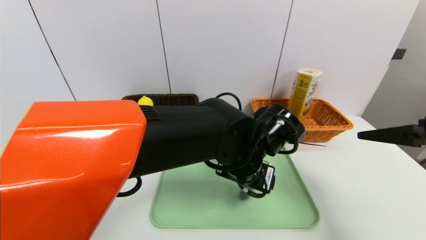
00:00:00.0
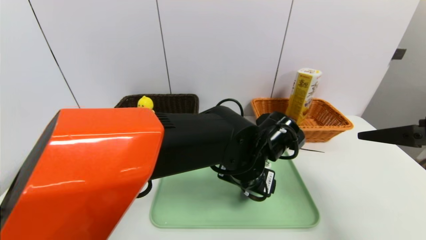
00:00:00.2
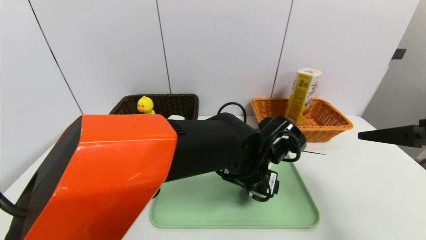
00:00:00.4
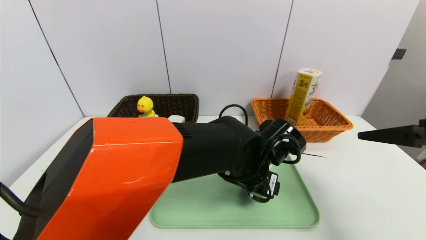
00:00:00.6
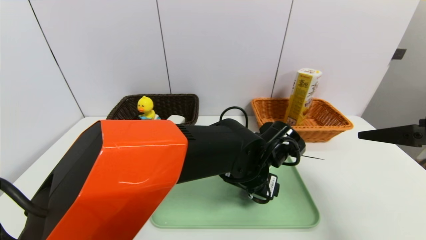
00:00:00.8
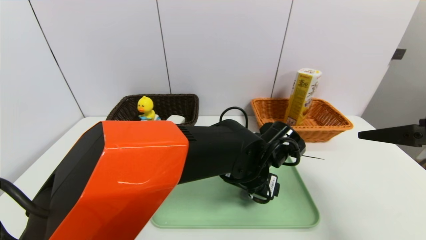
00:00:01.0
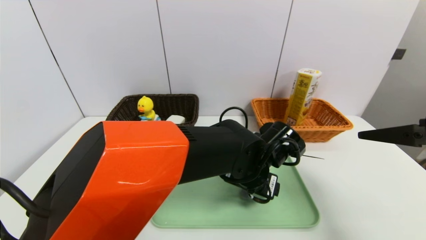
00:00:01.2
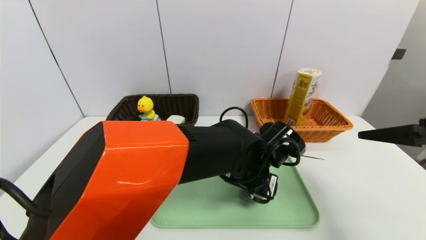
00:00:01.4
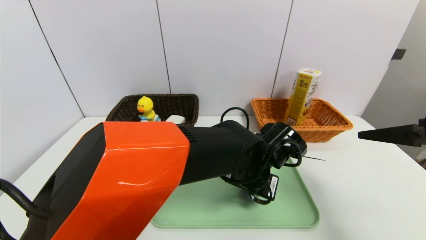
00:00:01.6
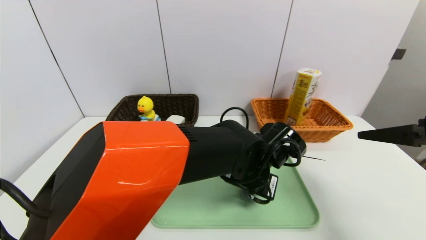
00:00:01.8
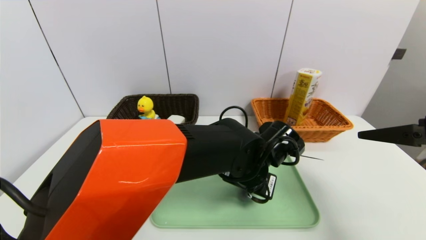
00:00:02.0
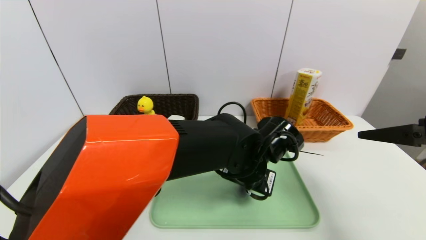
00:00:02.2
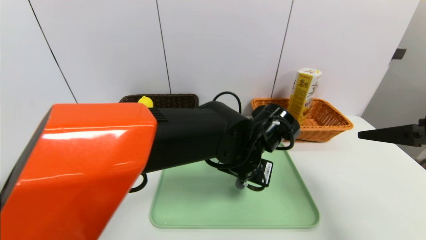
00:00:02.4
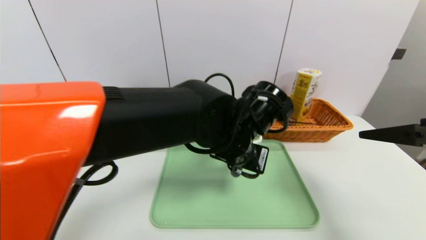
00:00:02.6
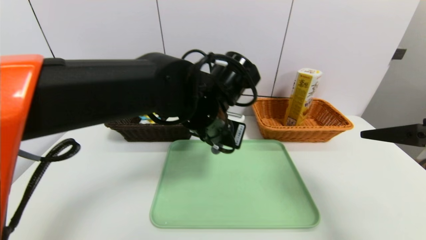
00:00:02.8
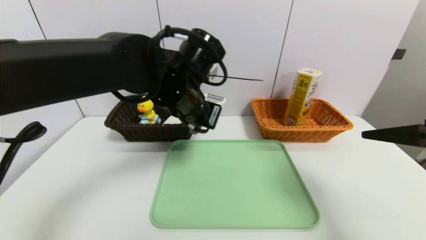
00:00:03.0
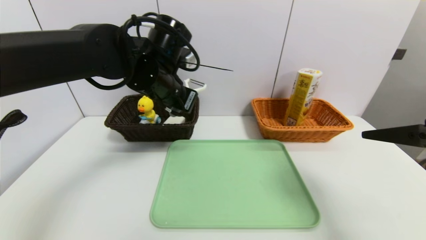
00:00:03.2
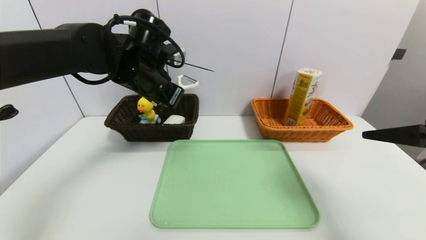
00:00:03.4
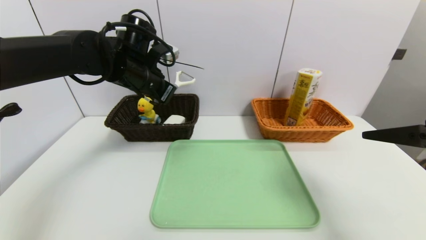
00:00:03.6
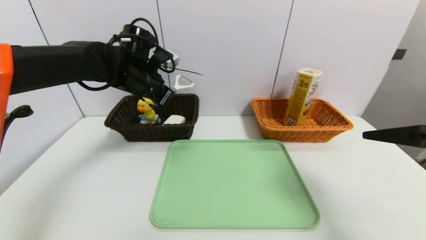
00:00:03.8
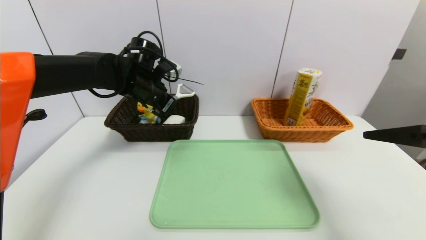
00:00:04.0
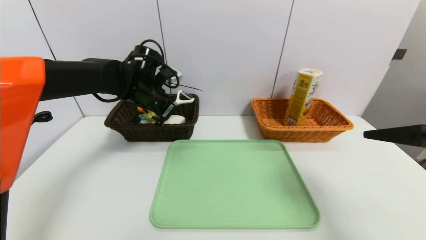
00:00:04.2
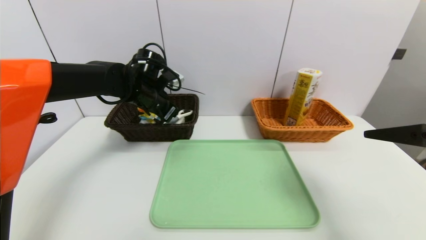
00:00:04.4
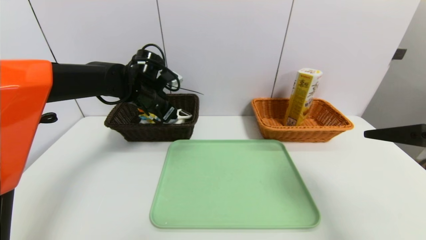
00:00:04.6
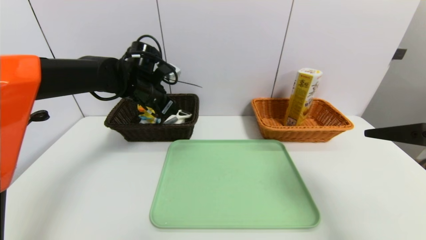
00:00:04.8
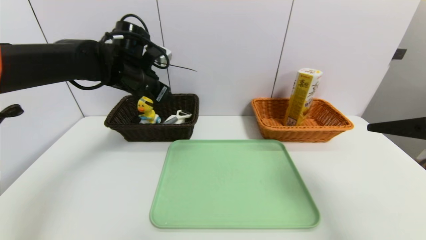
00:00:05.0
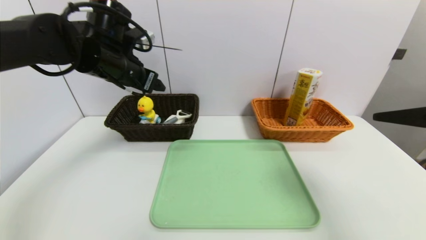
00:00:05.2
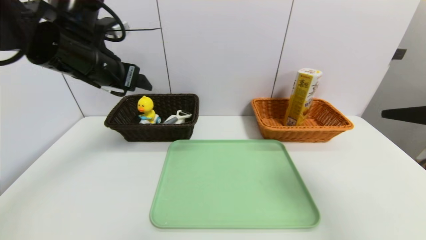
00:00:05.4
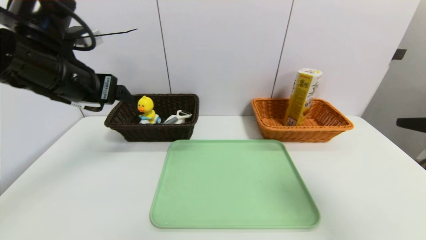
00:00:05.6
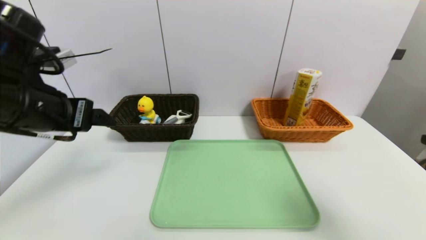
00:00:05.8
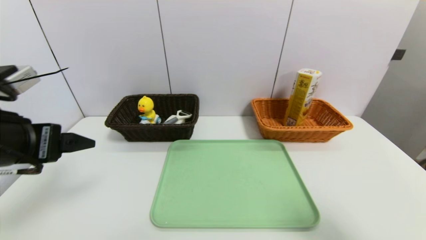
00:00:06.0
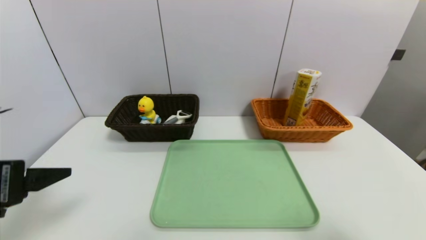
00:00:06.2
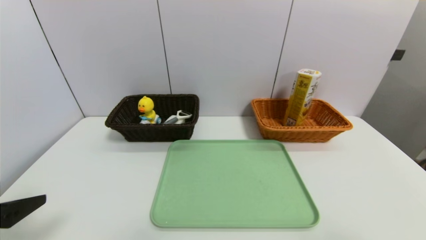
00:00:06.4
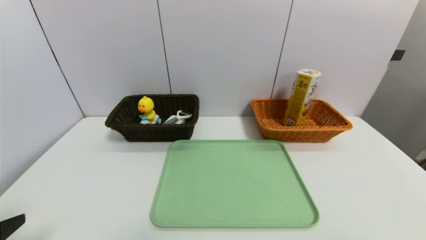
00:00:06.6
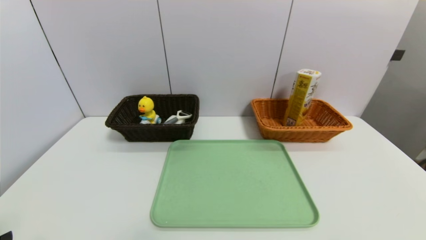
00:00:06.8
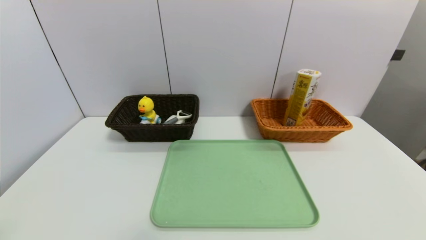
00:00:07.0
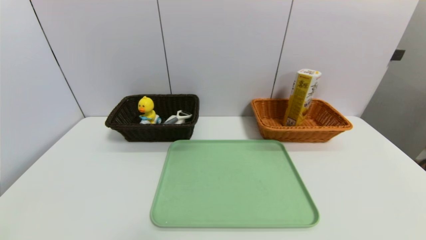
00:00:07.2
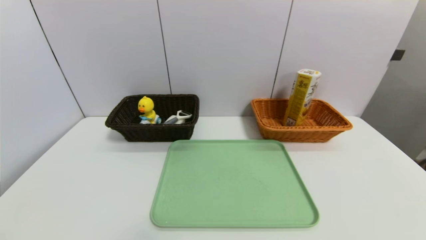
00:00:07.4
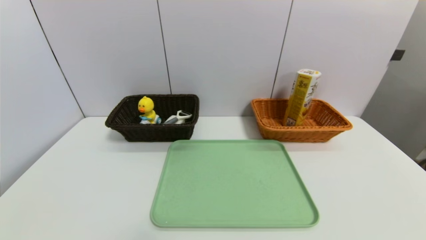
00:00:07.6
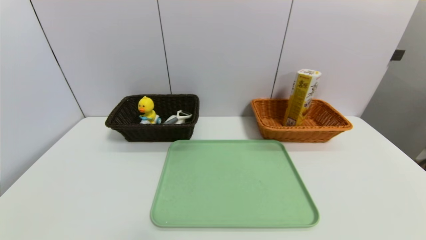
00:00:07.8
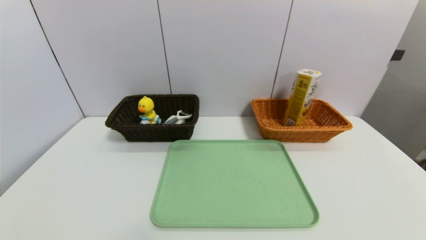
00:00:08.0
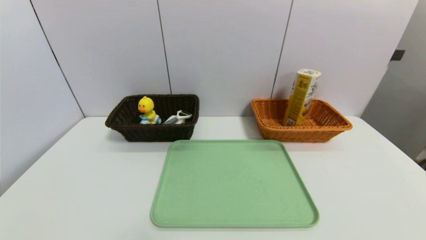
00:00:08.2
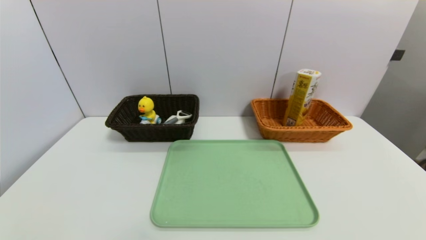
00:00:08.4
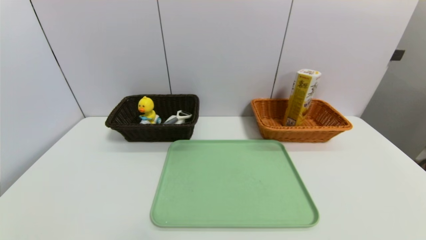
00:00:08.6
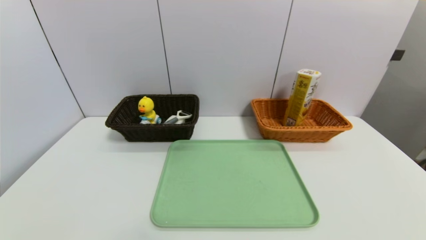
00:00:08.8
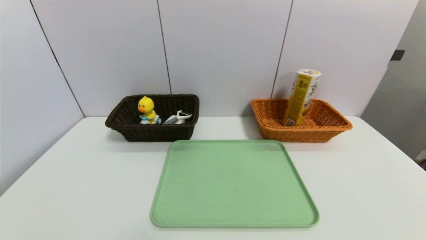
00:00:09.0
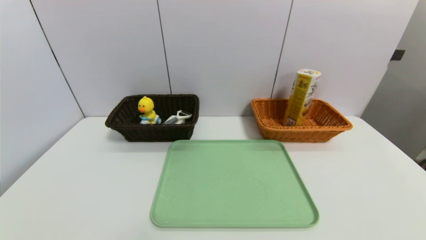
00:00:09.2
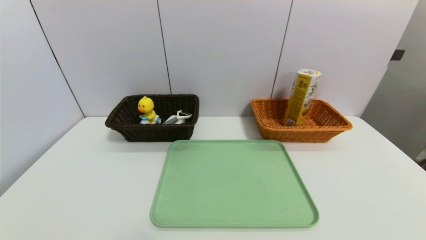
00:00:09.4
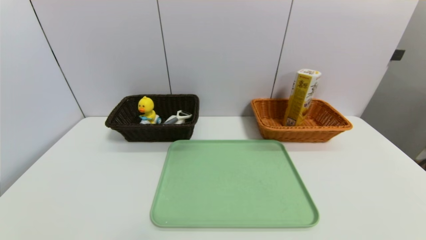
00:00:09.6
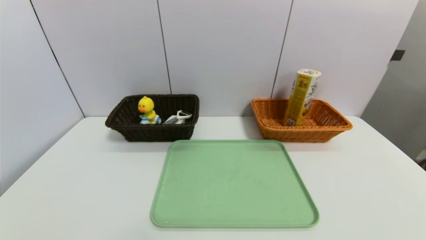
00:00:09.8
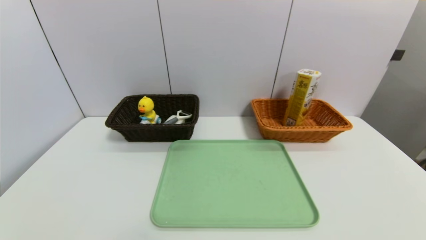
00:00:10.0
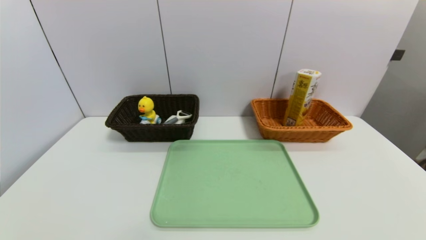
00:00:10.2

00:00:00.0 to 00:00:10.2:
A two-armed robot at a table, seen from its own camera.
Task of the whole recording: place the food in the right basket with the right gripper, and place the non food items in the left basket with the left gripper.
Step, 00:00:00.0 to 00:00:04.8: Grasp the peeler and put it in the left basket.
00:00:01.4 to 00:00:03.0: The left gripper shifts about 20 cm upward and to the left, and closes.
00:00:03.0 to 00:00:04.4: The left gripper shifts some 15 cm forward and to the left.
00:00:04.4 to 00:00:05.8: The left gripper heads backward and to the left, covering roughly 20 cm, and opens its fingers, while the right gripper shifts approximately 10 cm backward.
00:00:05.8 to 00:00:07.2: The right gripper travels backward and downward by approximately 15 cm. Meanwhile the left gripper is displaced backward and downward by some 25 cm.
